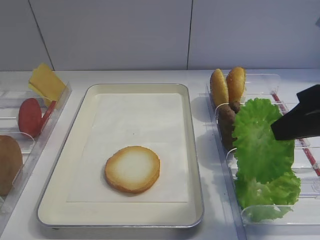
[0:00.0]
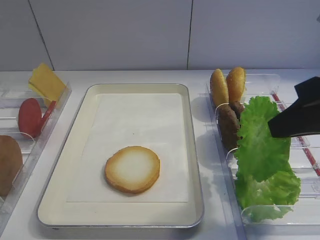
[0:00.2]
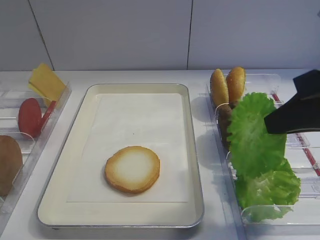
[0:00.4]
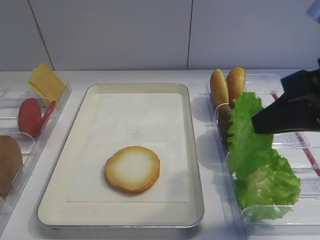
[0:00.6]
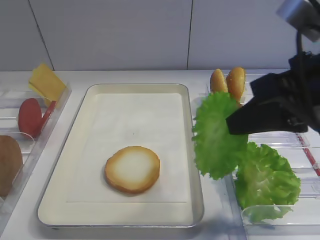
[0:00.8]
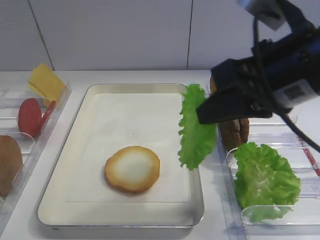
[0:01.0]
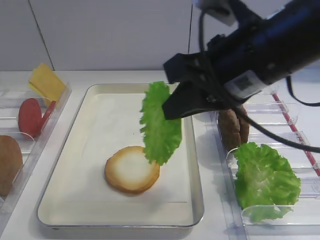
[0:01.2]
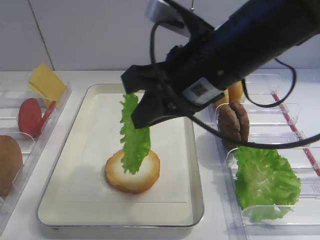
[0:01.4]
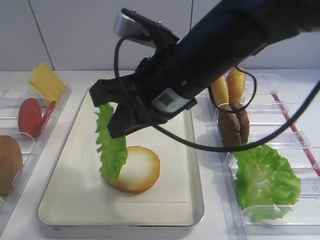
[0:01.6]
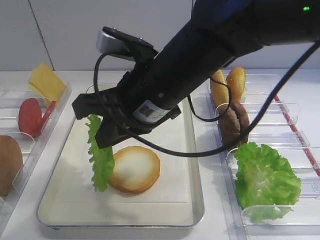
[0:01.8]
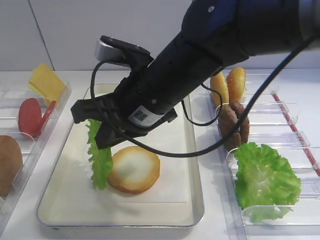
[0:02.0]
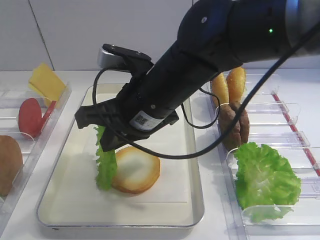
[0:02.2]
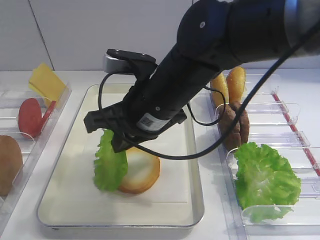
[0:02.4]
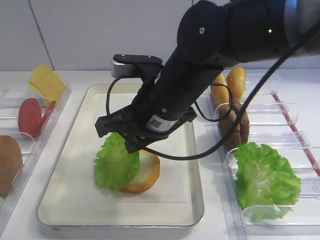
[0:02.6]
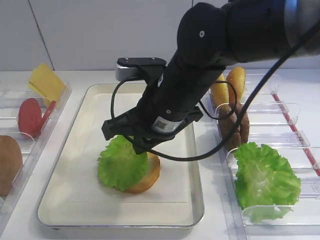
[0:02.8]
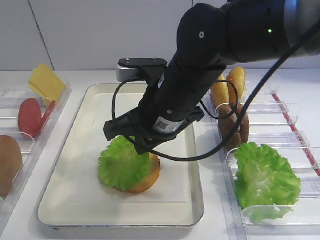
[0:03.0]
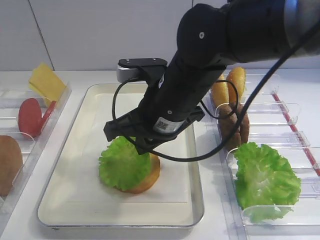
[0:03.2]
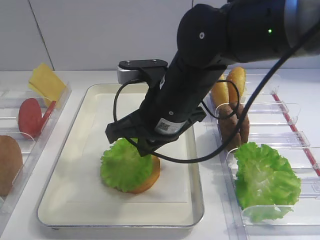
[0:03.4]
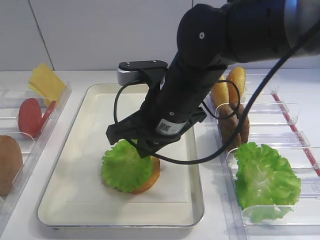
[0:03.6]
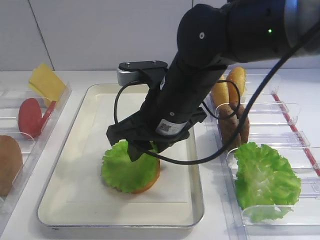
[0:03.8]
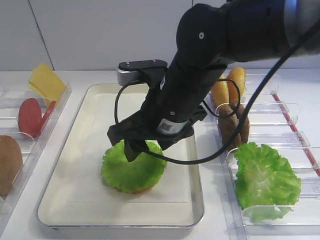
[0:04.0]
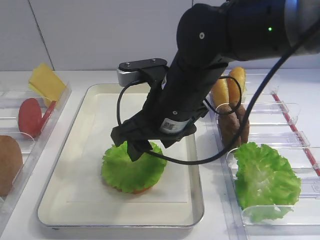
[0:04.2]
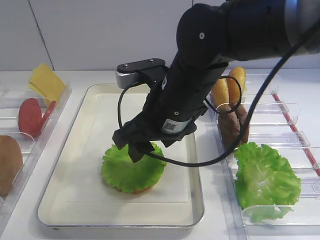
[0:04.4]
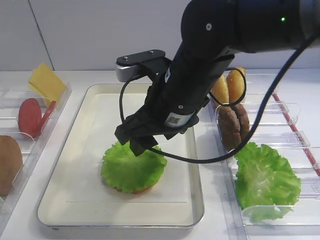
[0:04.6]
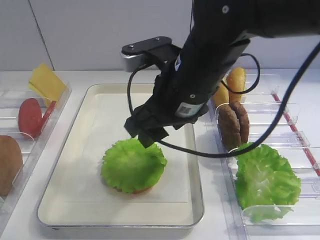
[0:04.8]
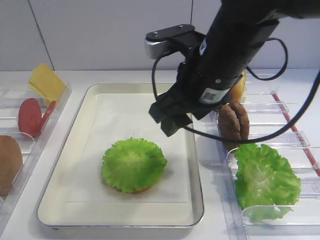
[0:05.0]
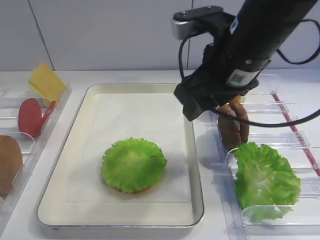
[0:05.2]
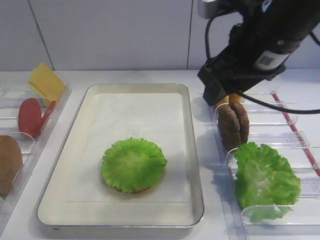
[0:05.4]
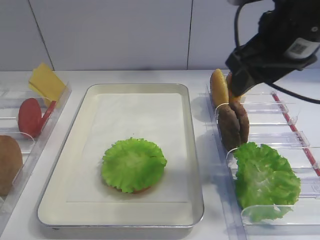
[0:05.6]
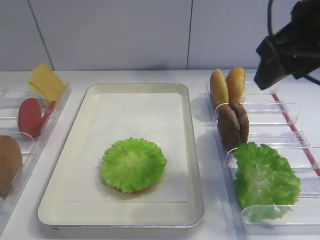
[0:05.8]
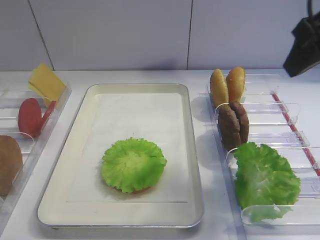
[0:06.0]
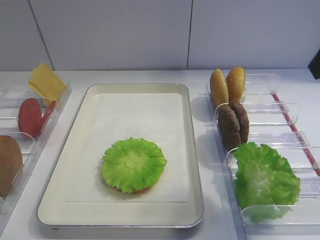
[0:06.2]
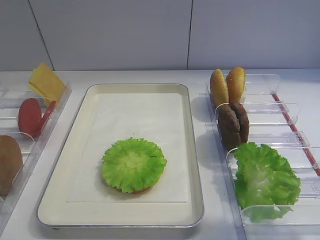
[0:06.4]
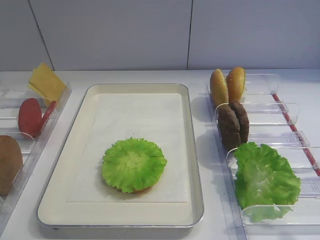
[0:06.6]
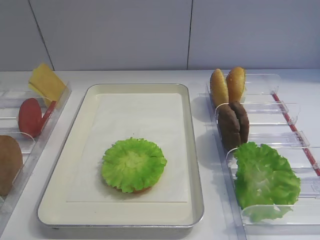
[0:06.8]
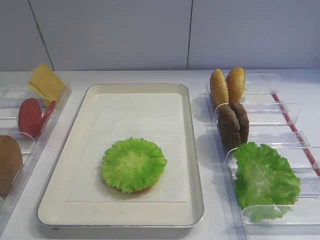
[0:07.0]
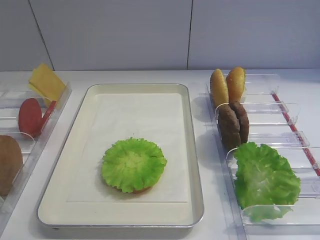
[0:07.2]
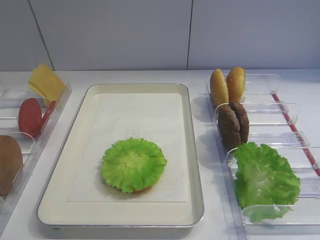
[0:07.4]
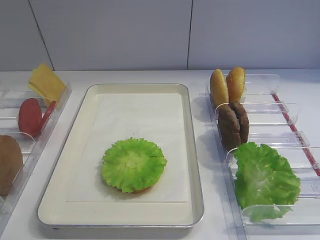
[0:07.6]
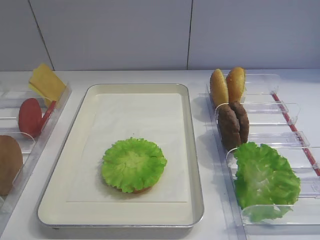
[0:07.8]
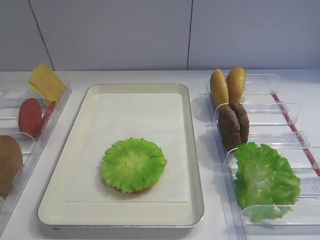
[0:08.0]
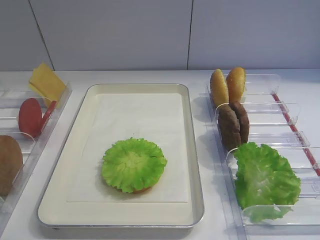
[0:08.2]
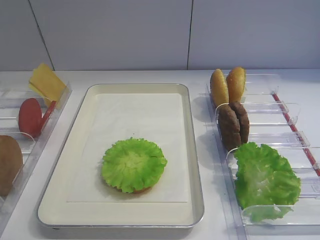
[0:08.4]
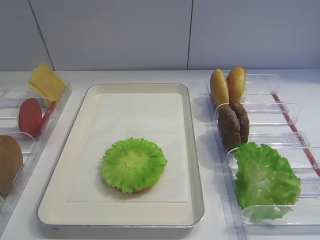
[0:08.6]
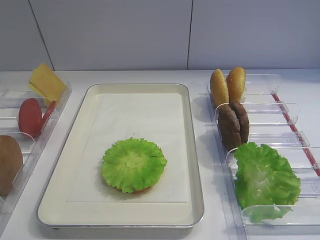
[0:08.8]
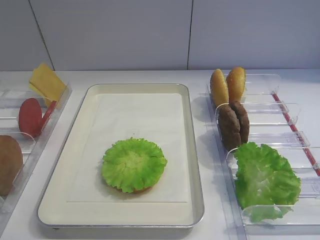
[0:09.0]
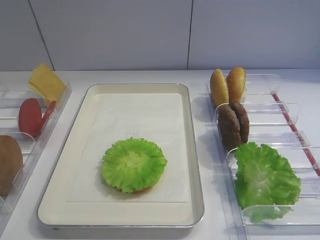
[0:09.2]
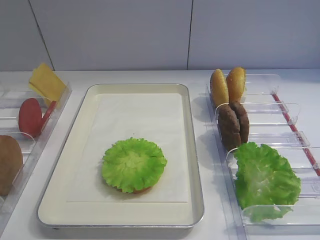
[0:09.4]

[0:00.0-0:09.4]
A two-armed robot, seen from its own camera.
Step, 0:00.0 to 0:03.8: Place the lettuce leaf on the bread slice with the right gripper.
0:00.0 to 0:01.6: The right gripper goes roughly 20 cm to the left.
0:01.6 to 0:03.2: The right gripper moves downward, approximately 5 cm.
0:03.2 to 0:04.8: The right gripper opens.
0:04.8 to 0:06.2: The right gripper is displaced to the right and upward by roughly 25 cm.
0:06.2 to 0:07.8: The right gripper shifts approximately 20 cm backward.
0:07.8 to 0:09.4: Both grippers stay about where they are.
